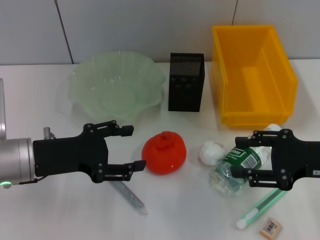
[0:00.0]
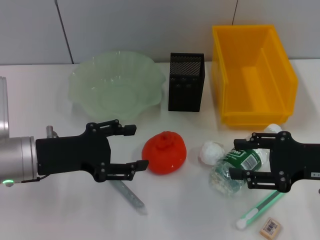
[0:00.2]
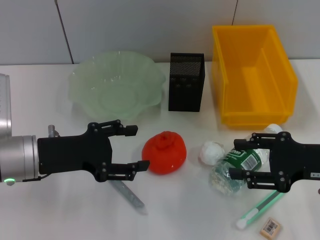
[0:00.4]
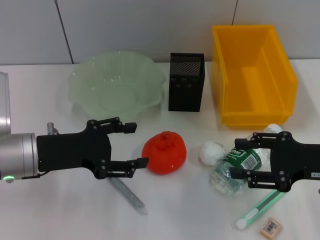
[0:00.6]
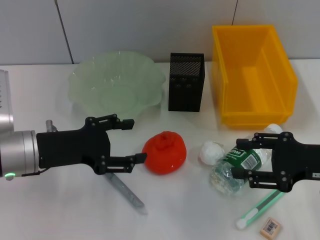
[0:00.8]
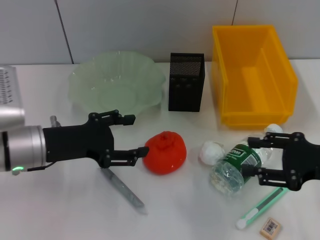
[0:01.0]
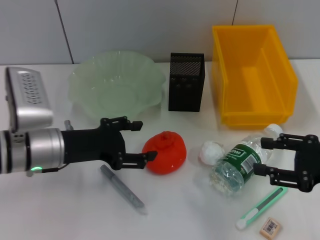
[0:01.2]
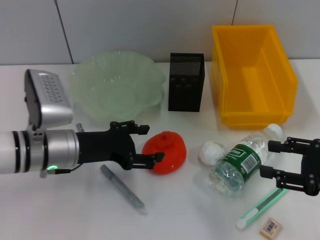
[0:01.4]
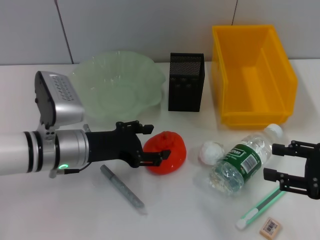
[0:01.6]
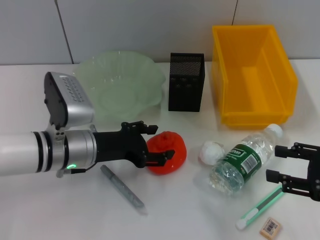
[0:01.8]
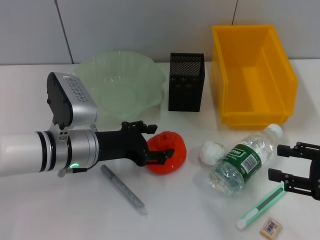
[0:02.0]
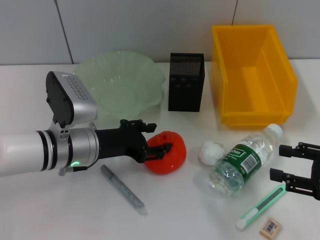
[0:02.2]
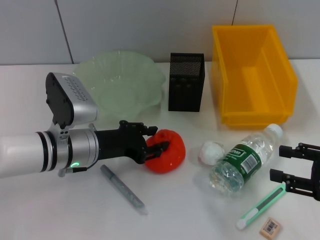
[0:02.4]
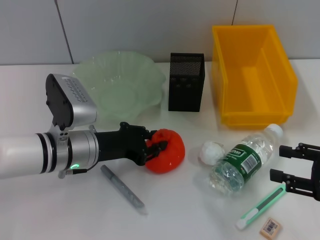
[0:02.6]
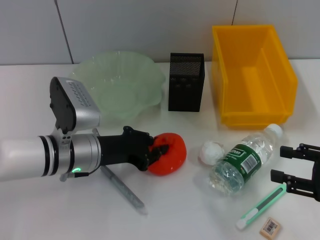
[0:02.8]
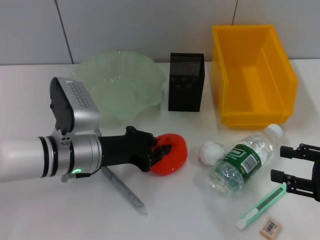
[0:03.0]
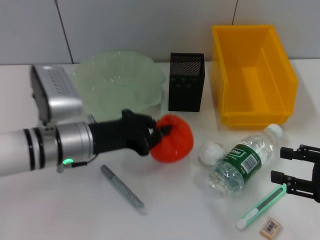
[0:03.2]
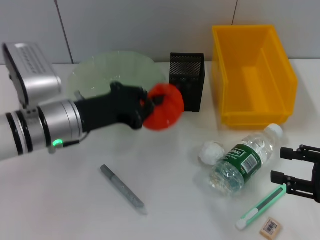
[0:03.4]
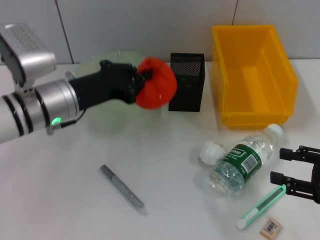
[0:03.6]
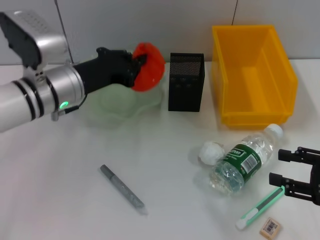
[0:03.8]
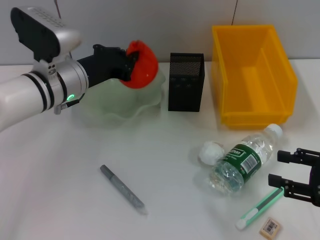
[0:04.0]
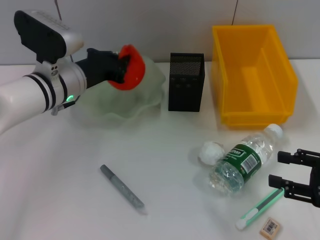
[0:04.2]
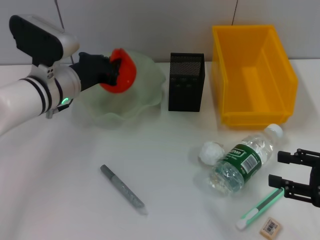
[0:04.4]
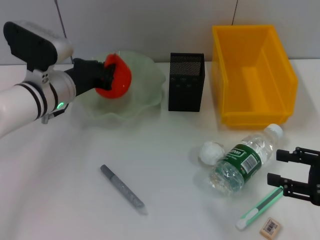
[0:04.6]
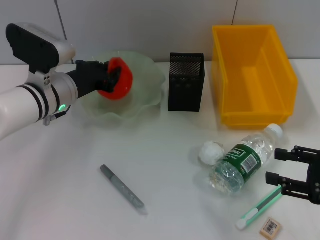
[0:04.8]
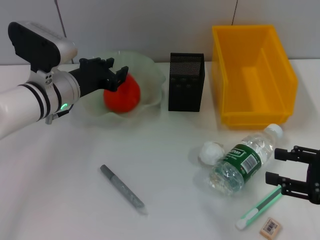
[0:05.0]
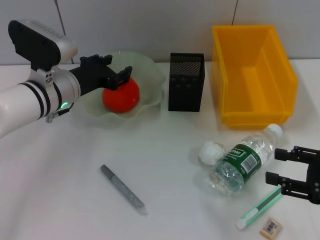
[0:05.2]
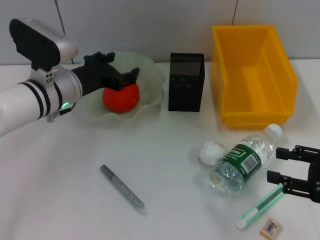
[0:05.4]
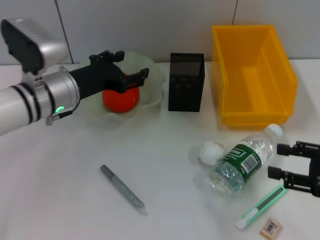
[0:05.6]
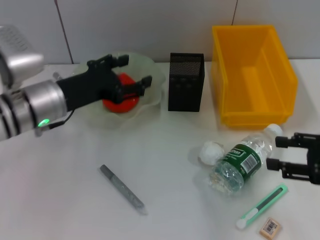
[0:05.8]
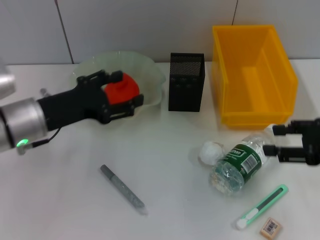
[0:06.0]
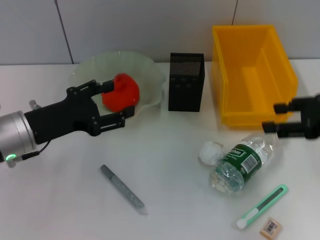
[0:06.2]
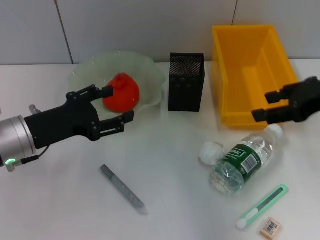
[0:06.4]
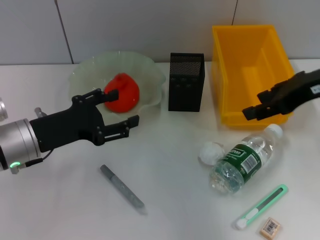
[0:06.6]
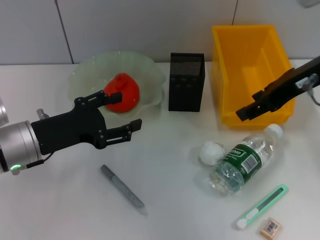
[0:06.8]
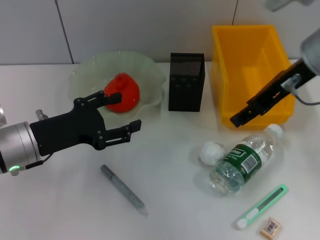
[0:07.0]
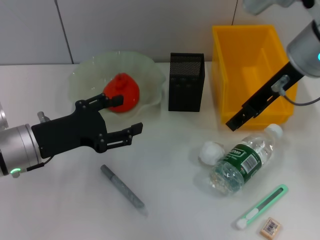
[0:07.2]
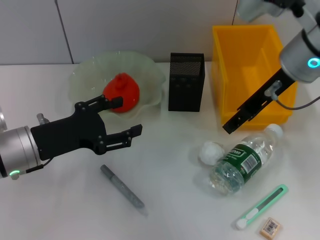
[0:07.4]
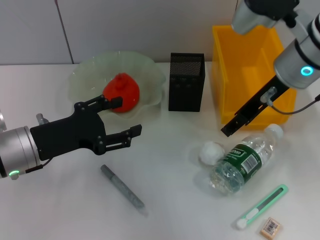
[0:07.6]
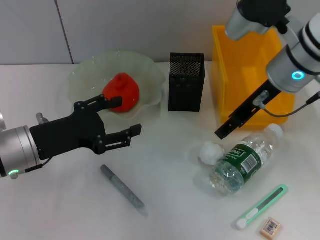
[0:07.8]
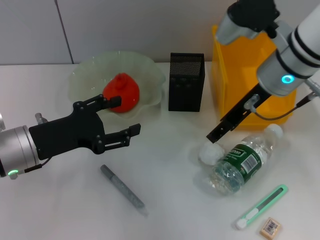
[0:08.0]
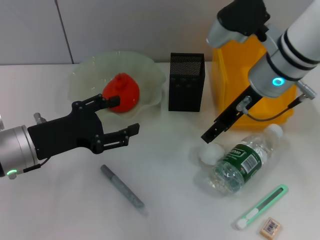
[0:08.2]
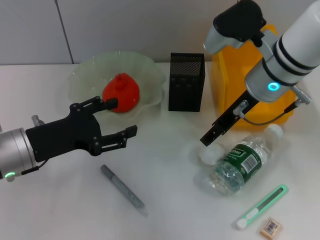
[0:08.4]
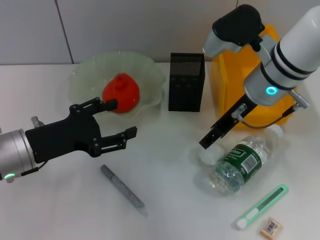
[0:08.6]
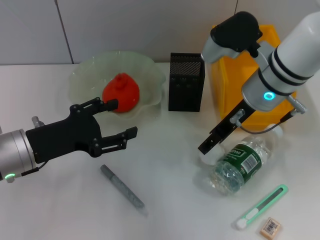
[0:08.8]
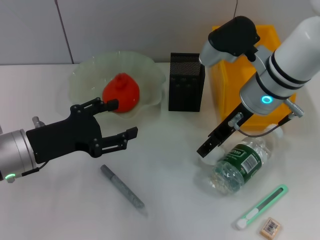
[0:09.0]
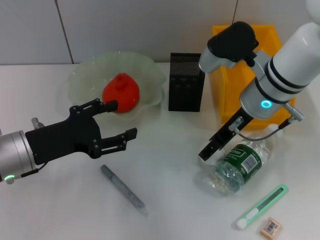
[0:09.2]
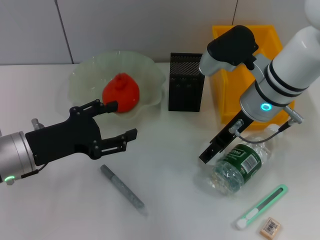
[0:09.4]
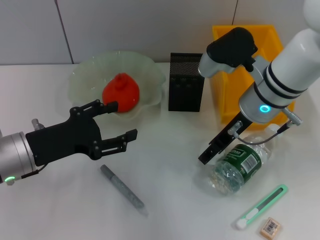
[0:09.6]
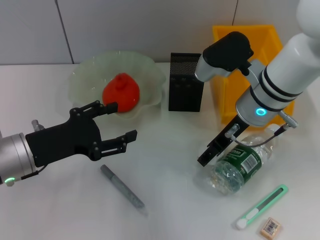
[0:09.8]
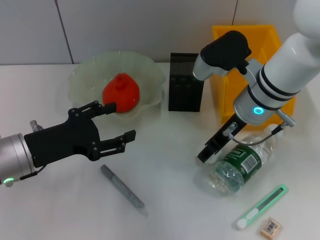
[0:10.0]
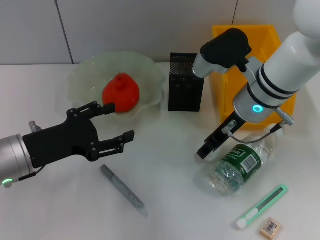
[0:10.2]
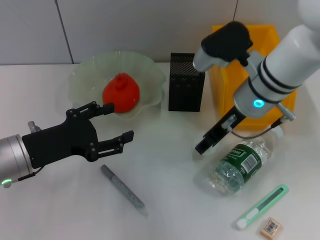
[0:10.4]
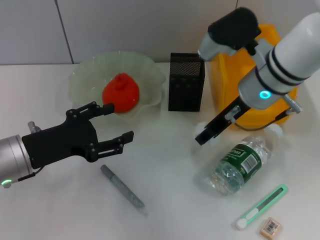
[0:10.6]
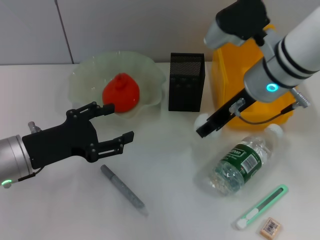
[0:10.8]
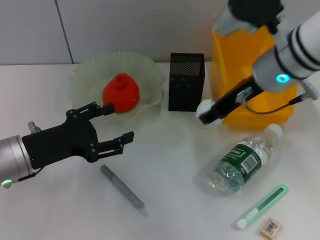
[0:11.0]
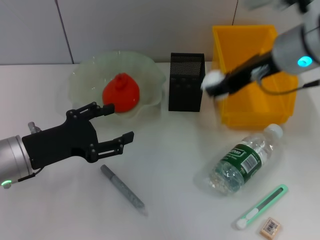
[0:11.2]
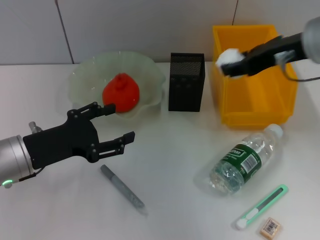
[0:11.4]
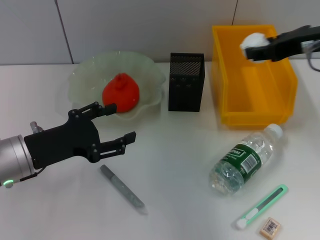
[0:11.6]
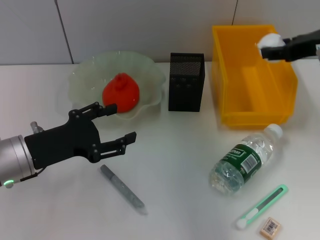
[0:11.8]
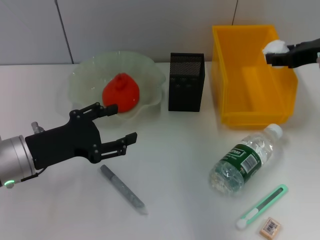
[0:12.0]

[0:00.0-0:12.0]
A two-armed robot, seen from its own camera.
Step, 0:00.0 to 0:02.8: Grab the orange with the left hand.
Step, 0:03.0 to 0:05.2: Place the orange into the fruit bowl with the left hand.
Step, 0:05.6 to 0:10.0: Grab the paper ball with the right hand.
0:00.0 to 0:01.6: The right gripper ends up some 5 cm from where it was. The left gripper heads to the right, covering some 5 cm.
0:01.6 to 0:03.0: The left gripper closes up.
0:03.0 to 0:04.4: The left gripper moves forward, about 10 cm.
0:04.4 to 0:06.0: The left gripper travels backward by about 10 cm, and opens. Meanwhile the right gripper travels upward and forward by some 10 cm.
0:06.0 to 0:07.6: The right gripper shifts about 20 cm to the left, forward and upward.
0:07.6 to 0:09.0: The right gripper is displaced downward by about 5 cm.
0:09.0 to 0:10.4: The grippers make only small movements.
0:10.4 to 0:12.0: The right gripper moves to the right, some 15 cm.

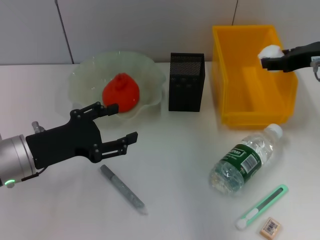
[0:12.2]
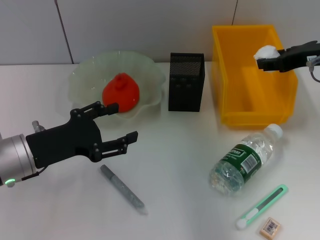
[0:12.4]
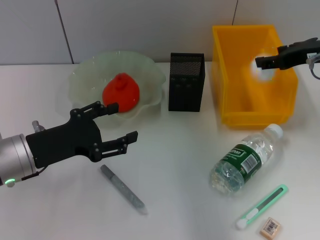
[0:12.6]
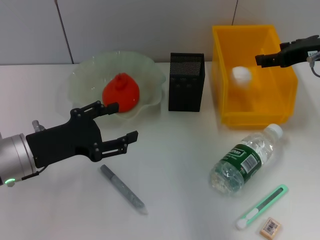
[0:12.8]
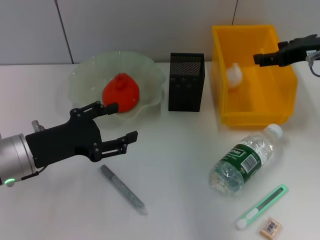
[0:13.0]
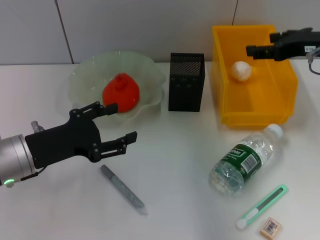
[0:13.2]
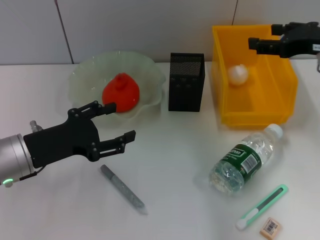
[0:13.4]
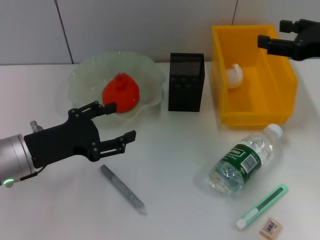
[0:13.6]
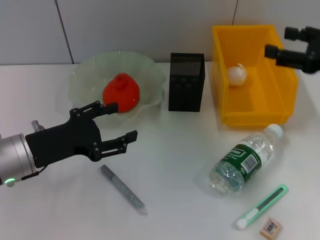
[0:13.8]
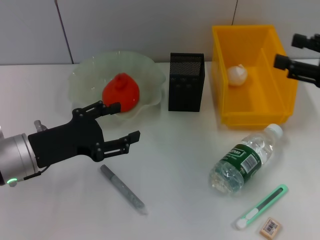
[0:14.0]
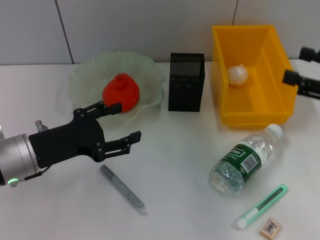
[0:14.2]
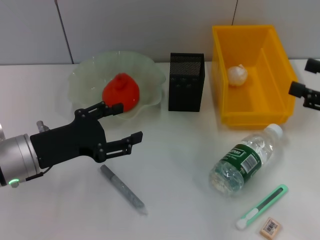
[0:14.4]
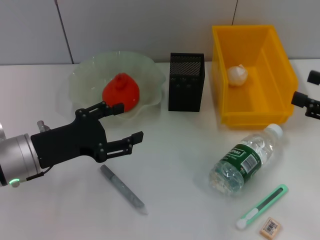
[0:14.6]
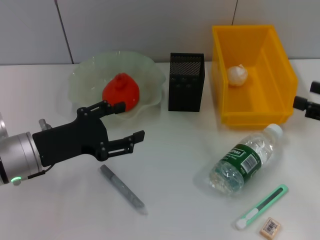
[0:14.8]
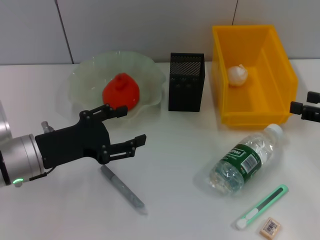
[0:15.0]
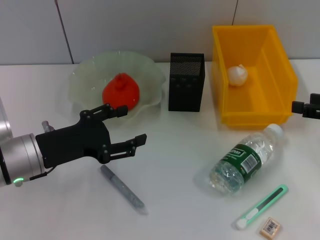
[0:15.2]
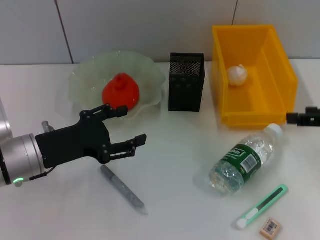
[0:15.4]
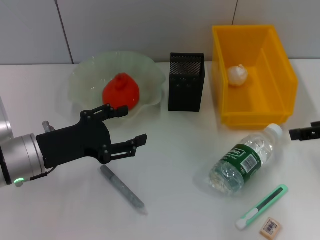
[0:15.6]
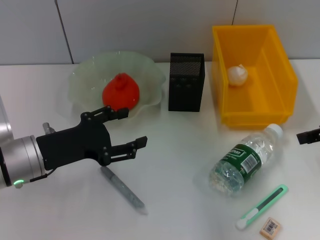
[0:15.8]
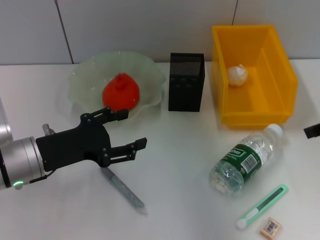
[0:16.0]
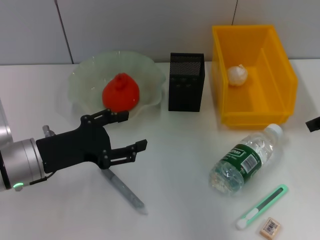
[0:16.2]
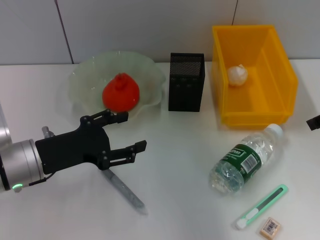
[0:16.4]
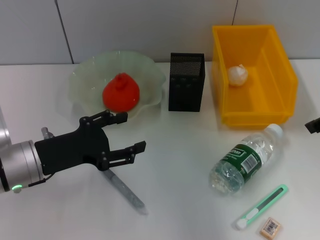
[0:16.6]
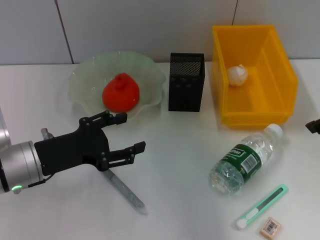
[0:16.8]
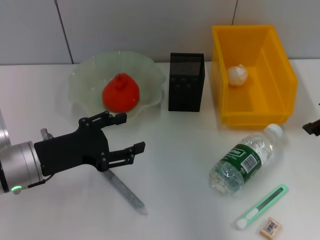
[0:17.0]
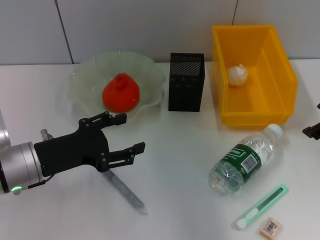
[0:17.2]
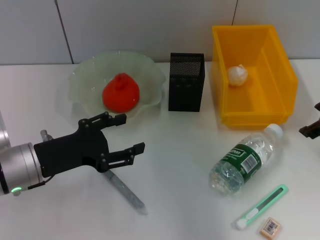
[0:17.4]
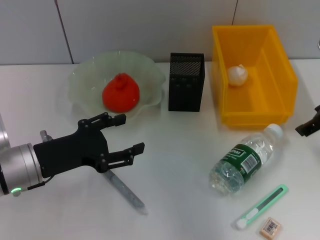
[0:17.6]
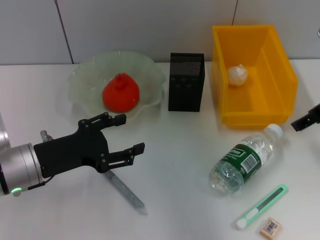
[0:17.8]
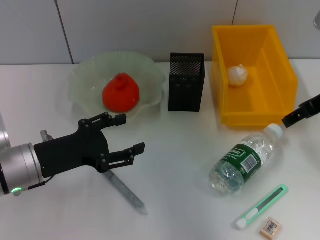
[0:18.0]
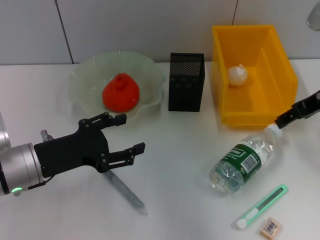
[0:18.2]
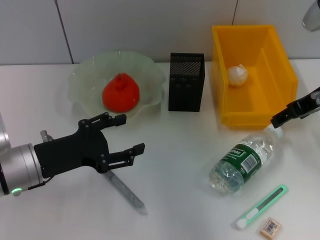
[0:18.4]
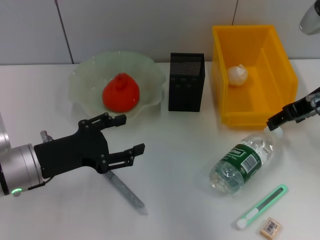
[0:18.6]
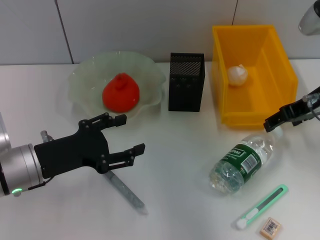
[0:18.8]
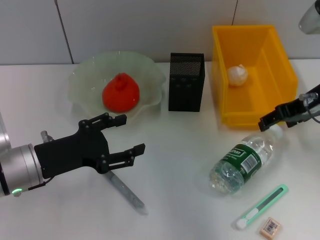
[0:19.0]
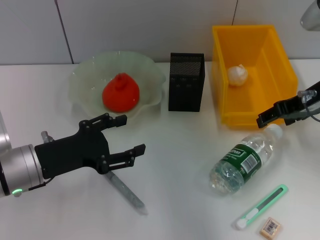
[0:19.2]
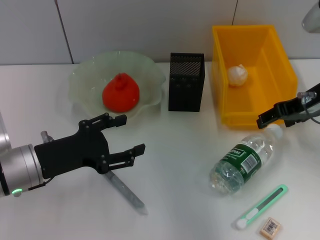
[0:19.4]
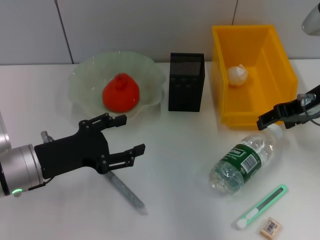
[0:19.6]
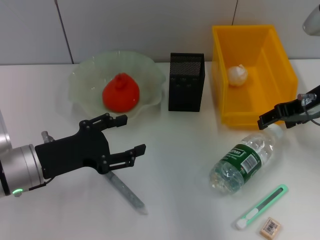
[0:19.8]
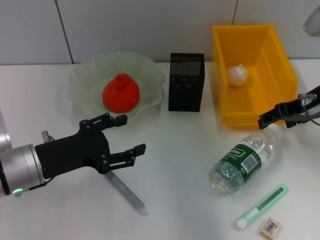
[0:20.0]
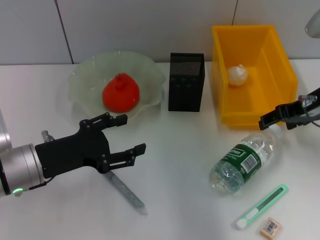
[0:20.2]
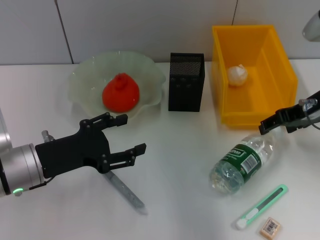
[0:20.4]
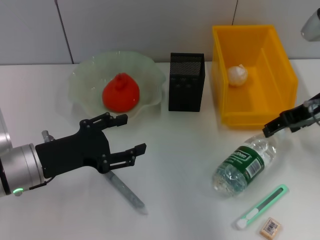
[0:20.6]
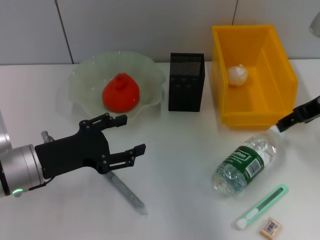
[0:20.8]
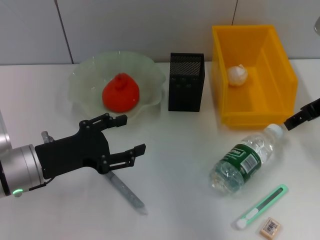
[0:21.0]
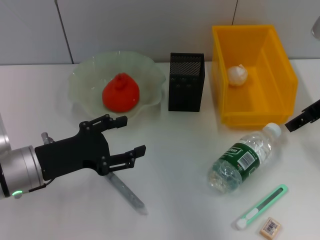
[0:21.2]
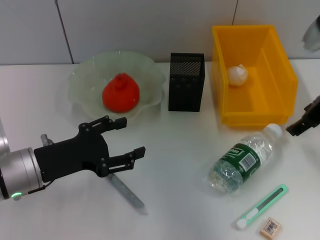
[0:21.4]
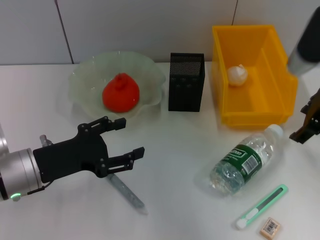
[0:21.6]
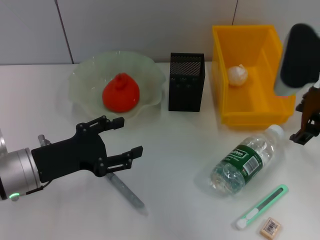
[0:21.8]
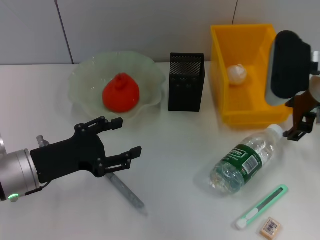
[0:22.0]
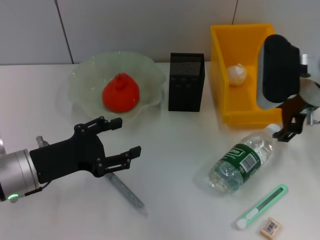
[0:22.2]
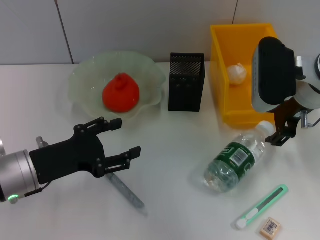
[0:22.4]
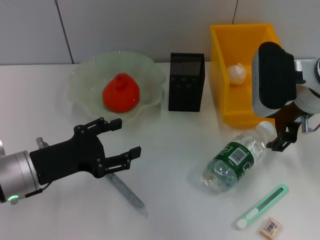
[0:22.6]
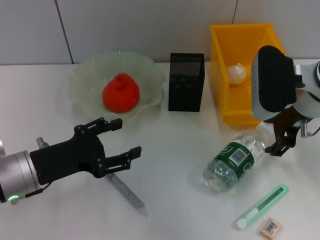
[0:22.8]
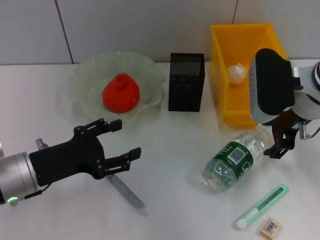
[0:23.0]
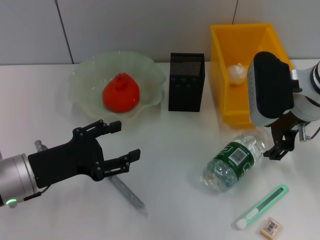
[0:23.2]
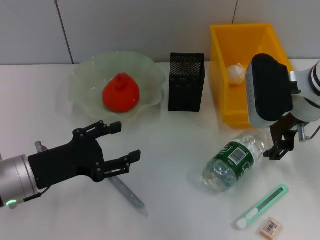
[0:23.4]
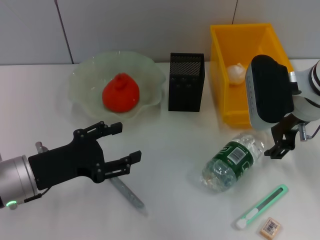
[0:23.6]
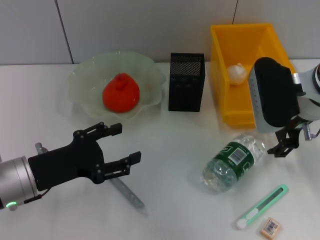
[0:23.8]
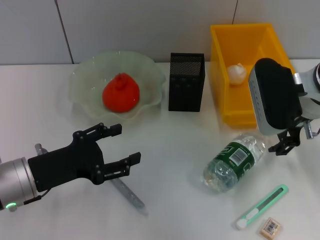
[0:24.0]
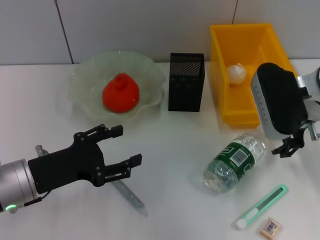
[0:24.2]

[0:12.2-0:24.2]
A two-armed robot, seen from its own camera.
0:12.2 to 0:13.8: The right gripper travels backward by some 5 cm.
0:13.8 to 0:15.2: The right gripper shifts by some 5 cm.
0:15.2 to 0:16.6: The right gripper travels upward and to the left by about 10 cm.
0:16.6 to 0:18.2: The right gripper moves approximately 5 cm.
0:18.2 to 0:19.8: The grippers make only small movements.
0:21.2 to 0:22.6: The right gripper shifts roughly 10 cm to the left.
0:22.6 to 0:24.2: There are only small adjustments of the grippers.
